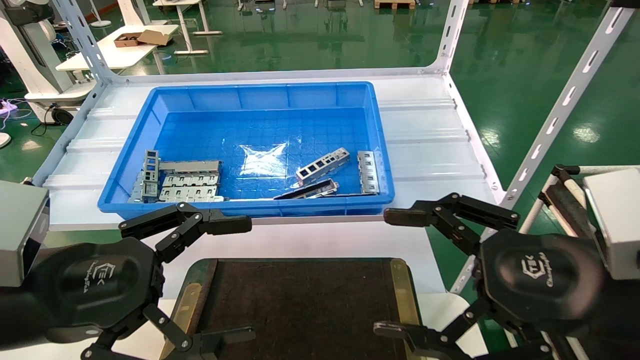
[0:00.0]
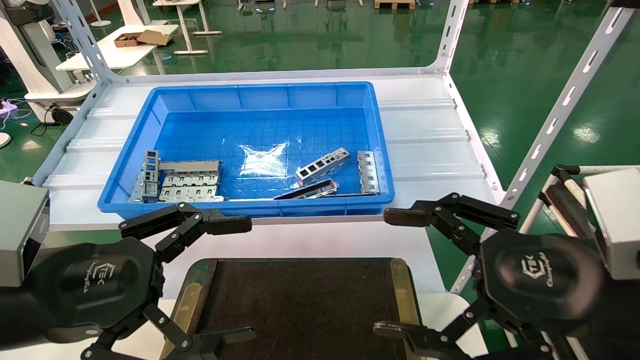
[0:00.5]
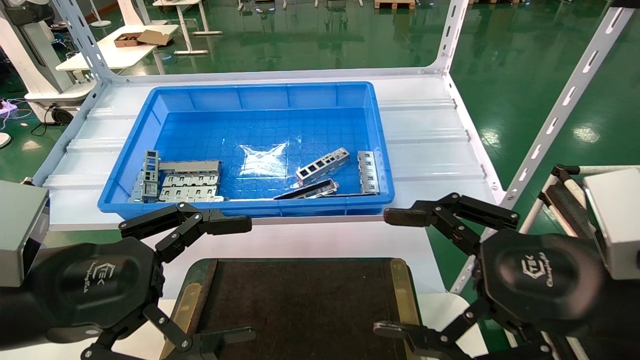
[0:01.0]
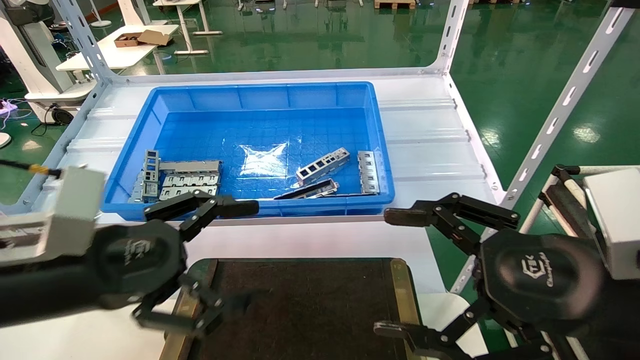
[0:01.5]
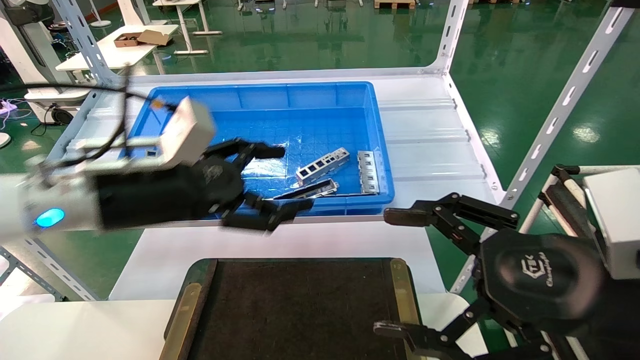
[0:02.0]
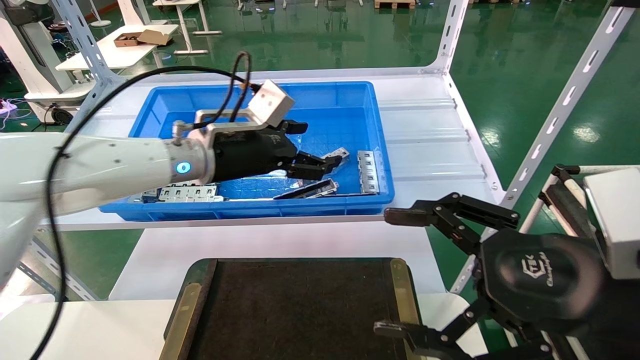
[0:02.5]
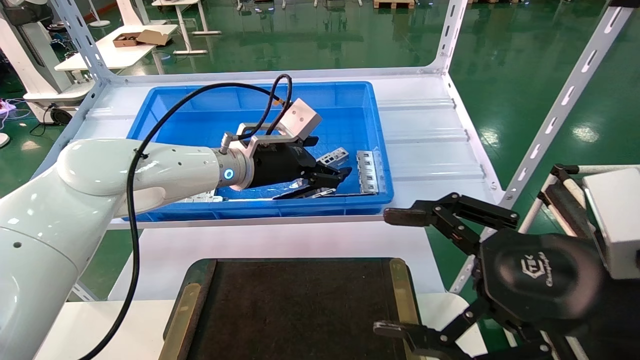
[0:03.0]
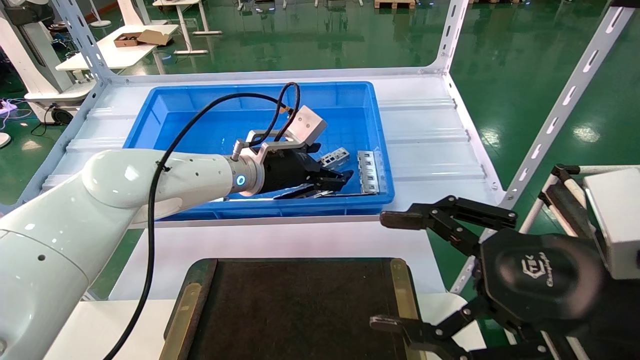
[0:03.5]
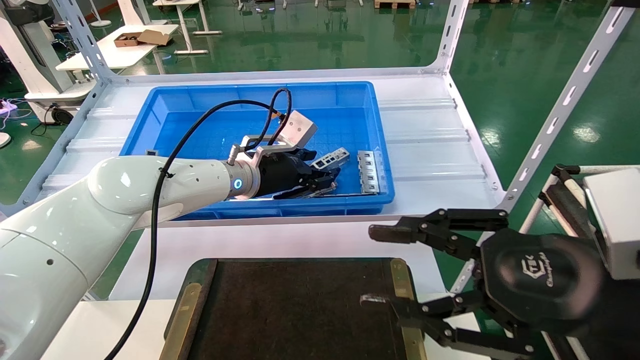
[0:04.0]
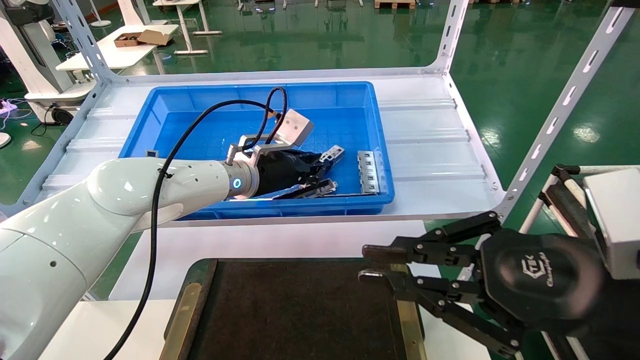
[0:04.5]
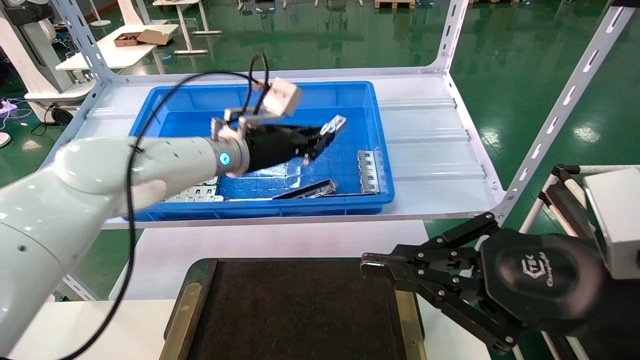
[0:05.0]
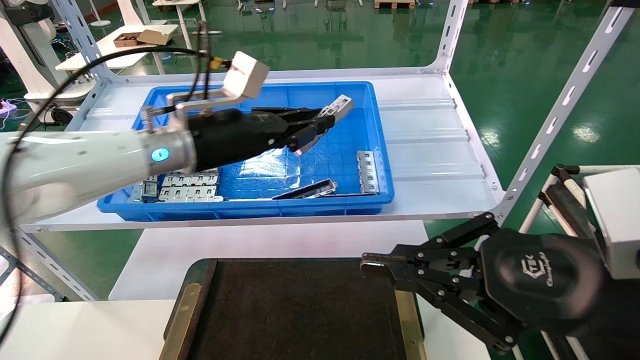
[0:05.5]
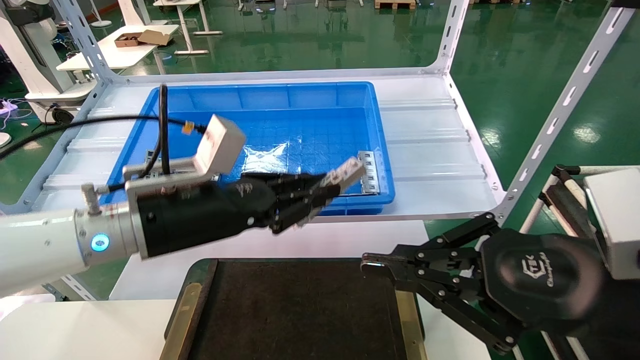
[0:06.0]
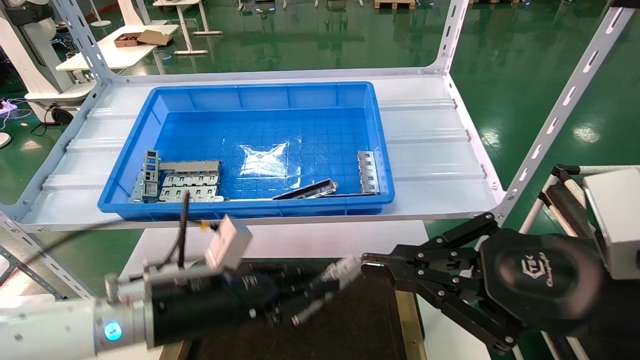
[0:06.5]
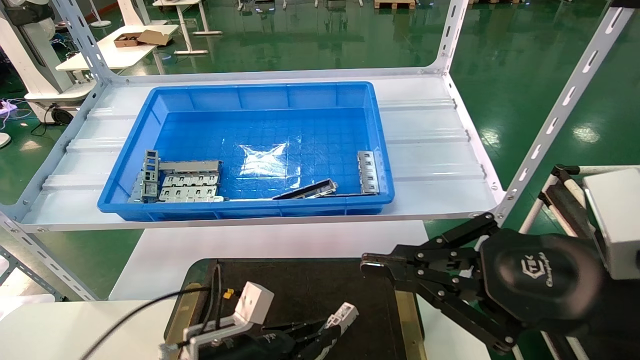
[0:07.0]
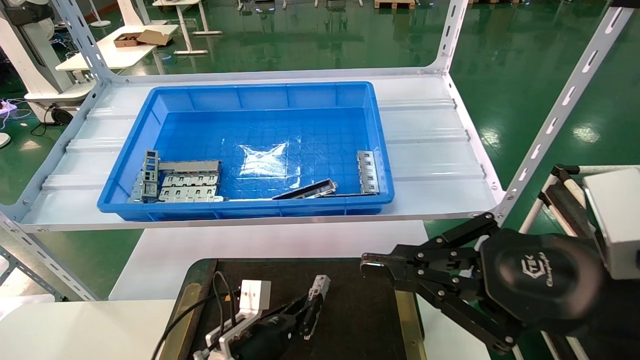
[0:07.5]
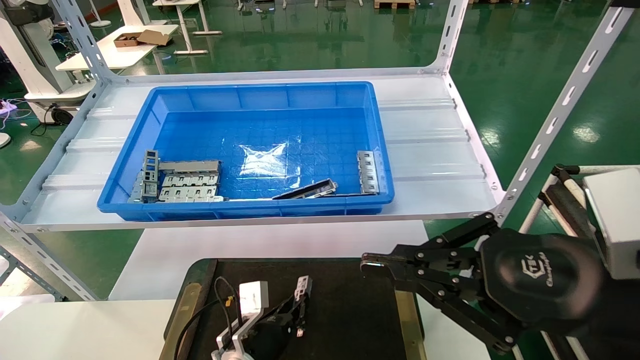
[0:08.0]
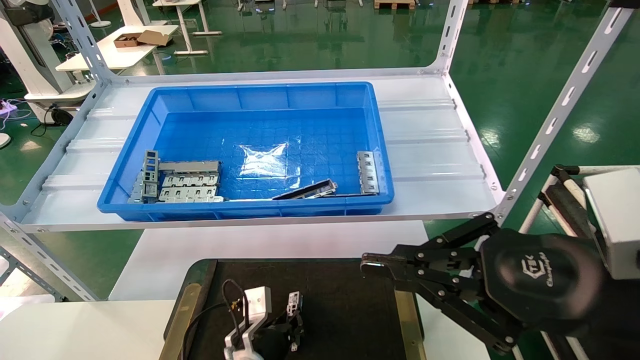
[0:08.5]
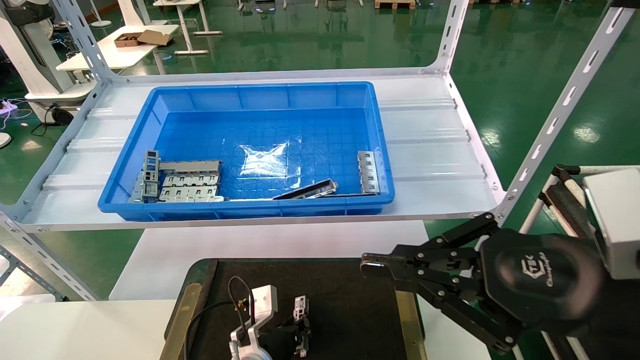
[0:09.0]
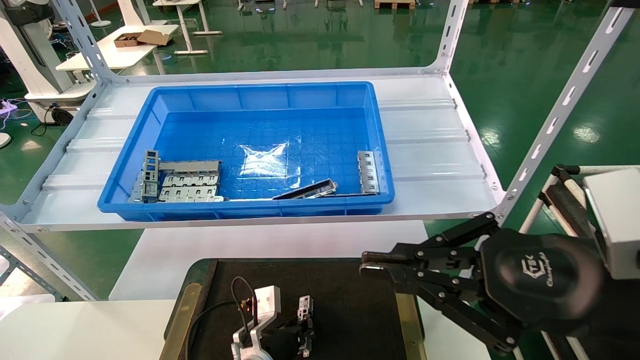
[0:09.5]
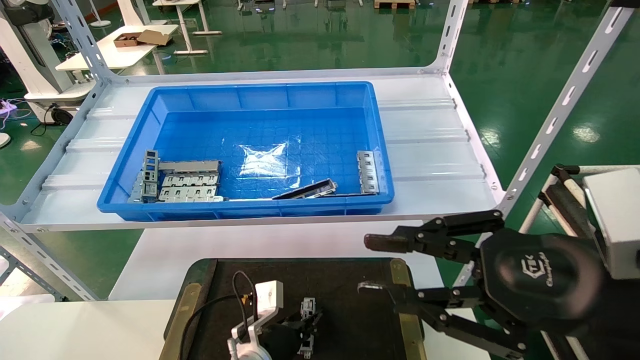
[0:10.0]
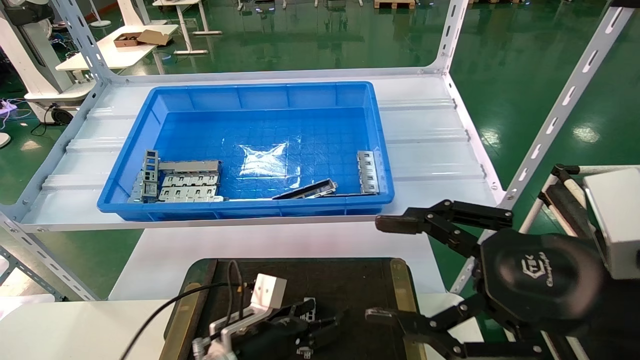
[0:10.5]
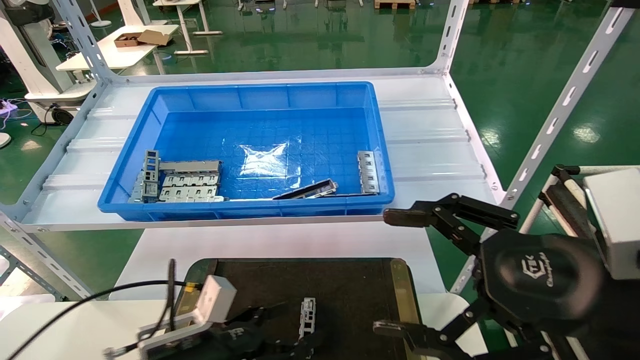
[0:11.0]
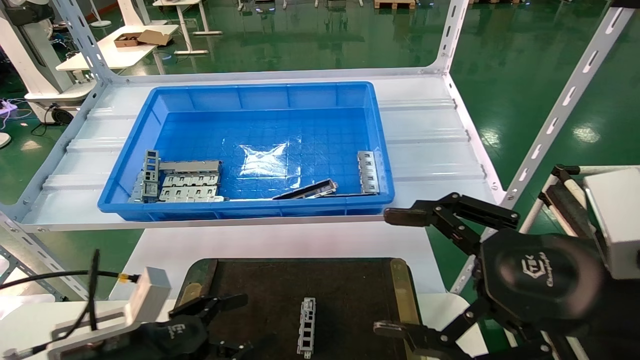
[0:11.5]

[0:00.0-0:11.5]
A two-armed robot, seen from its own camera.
Task of the whole recording: Grasp the part with one hand and place it on the black container.
Step, 0:02.0 to 0:05.5: Pick up the front USB bracket from the feeding area.
Step, 0:06.0 to 0:10.0: Place the front USB bracket into the box.
0:00.0 to 0:02.0: The left gripper heads forward and to the right, covering approximately 15 cm.
0:02.0 to 0:04.0: The left gripper travels forward and to the right by roughly 20 cm, and closes its fingers. Meanwhile the right gripper closes.
0:04.0 to 0:06.0: The right gripper closes its fingers. Meanwhile the left gripper moves backward and to the left, about 20 cm, and closes its fingers.
0:06.0 to 0:07.5: The left gripper goes roughly 25 cm downward.
0:09.5 to 0:11.5: The left gripper heads to the left, upward and backward, covering roughly 25 cm, and opens up. The right gripper opens.
